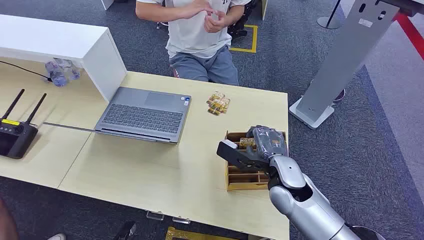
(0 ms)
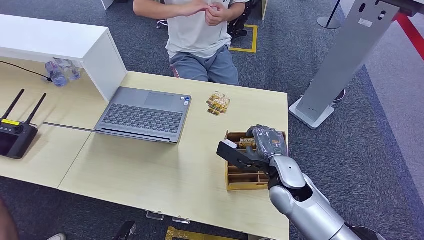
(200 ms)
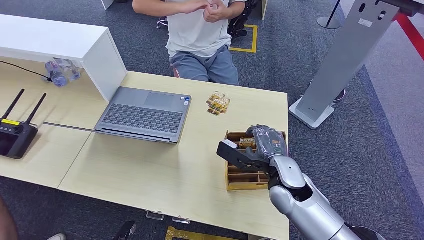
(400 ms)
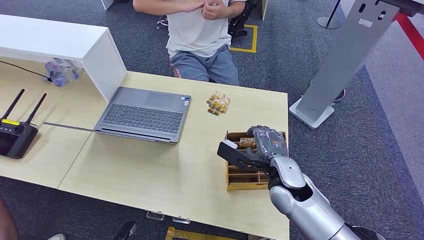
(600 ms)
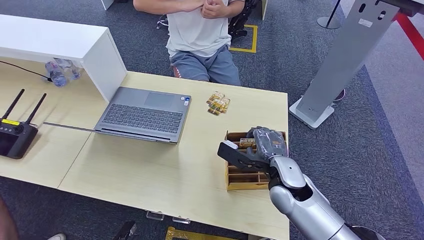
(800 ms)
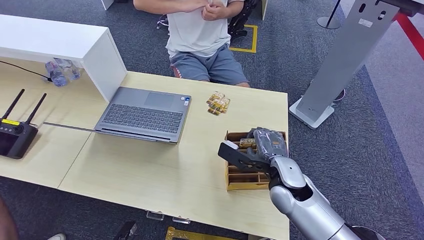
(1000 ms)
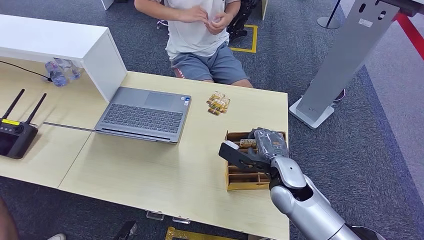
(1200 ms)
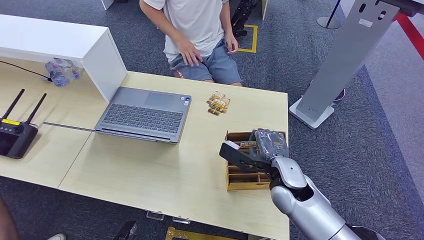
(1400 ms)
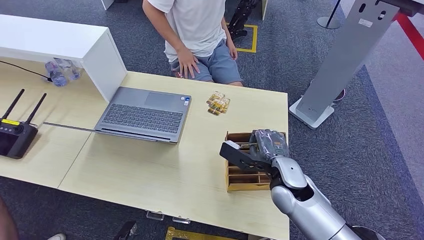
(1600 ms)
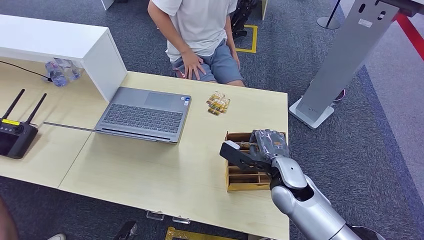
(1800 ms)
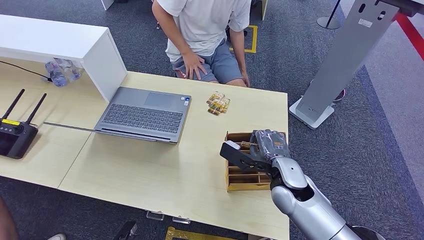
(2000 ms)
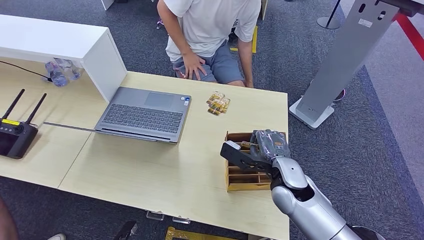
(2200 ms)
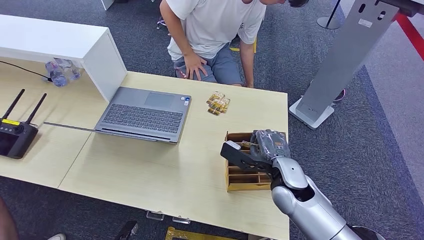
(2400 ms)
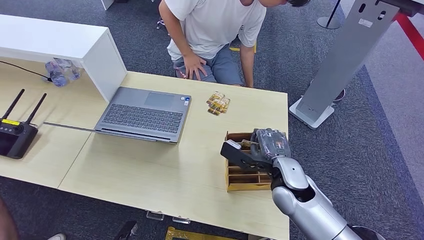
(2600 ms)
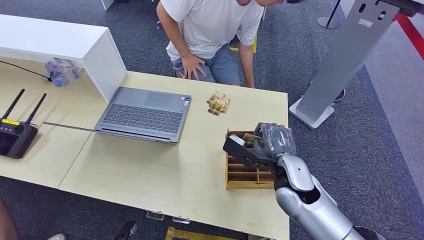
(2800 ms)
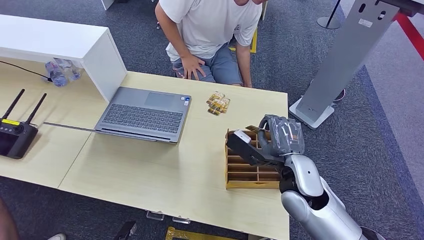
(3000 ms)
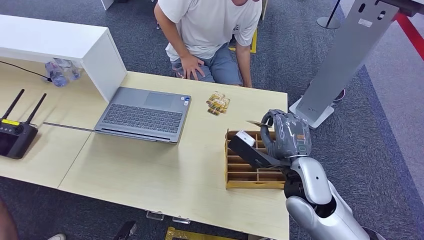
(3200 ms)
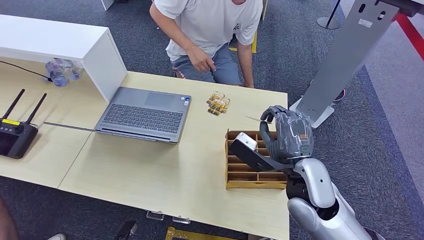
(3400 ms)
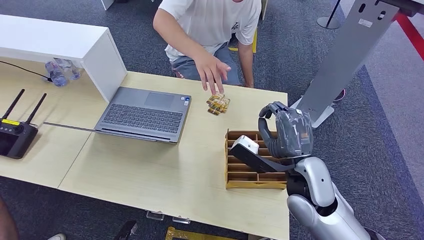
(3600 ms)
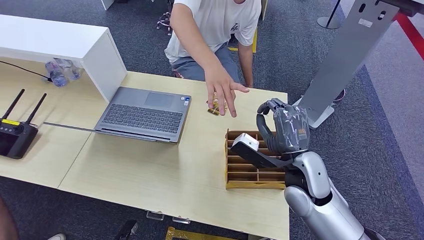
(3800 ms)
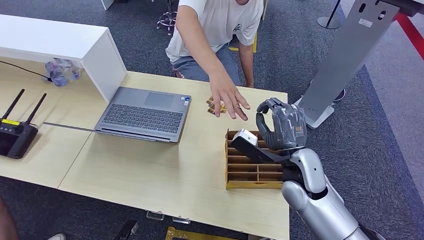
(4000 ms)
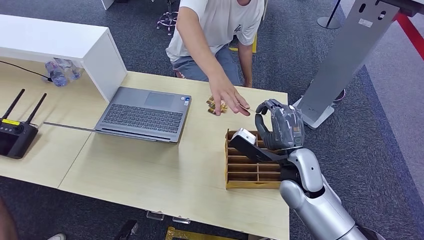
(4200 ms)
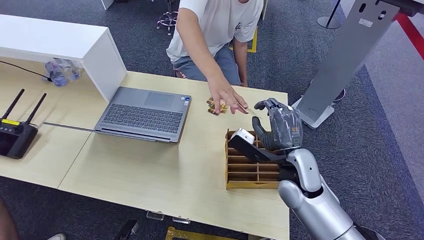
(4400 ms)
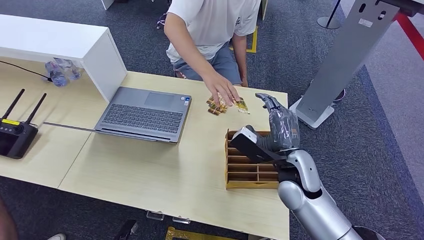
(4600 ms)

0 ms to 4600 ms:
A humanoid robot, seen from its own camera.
Step, 0 ms to 3000 ms: Pick up the room card from the card holder.
Step, 3400 ms to 4600 ms: Hand the room card to the target.
1600 ms to 3000 ms: There are only small adjustments of the hands.

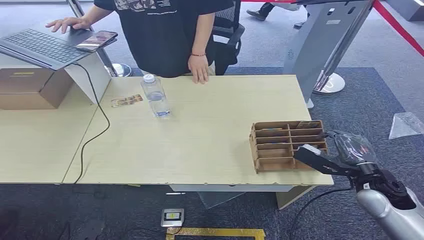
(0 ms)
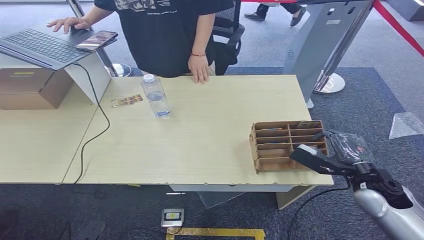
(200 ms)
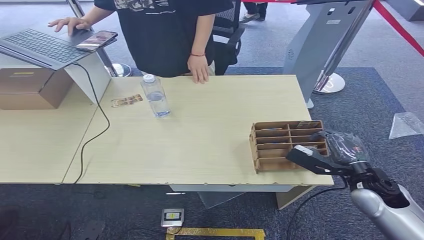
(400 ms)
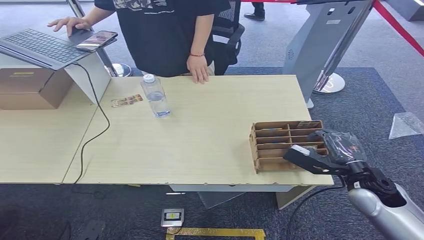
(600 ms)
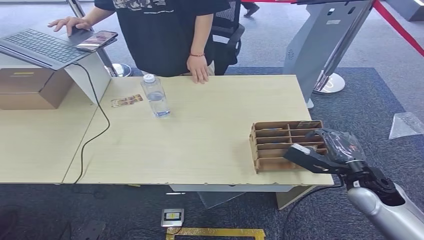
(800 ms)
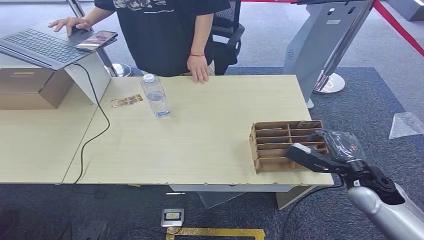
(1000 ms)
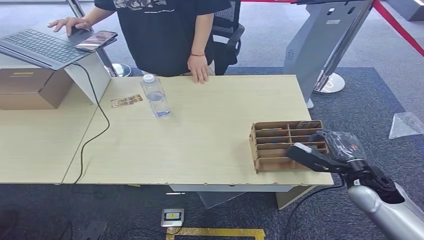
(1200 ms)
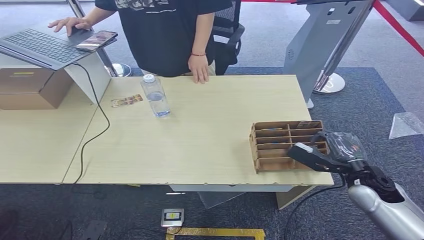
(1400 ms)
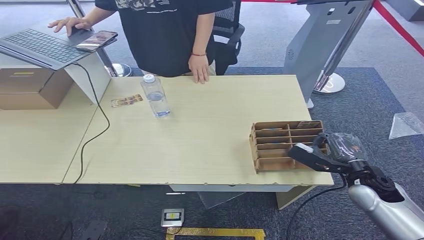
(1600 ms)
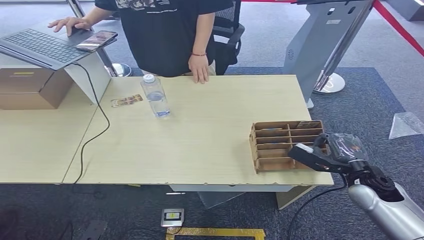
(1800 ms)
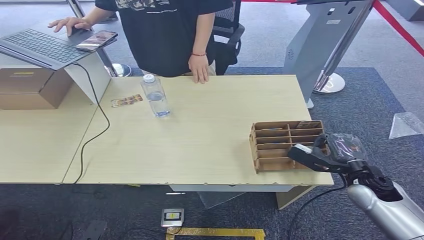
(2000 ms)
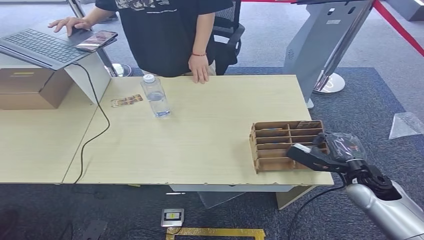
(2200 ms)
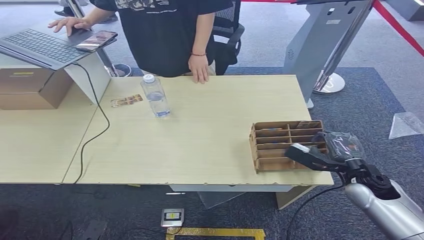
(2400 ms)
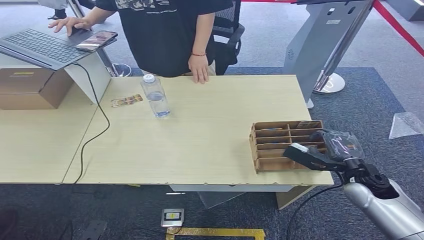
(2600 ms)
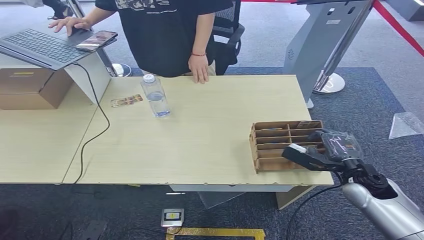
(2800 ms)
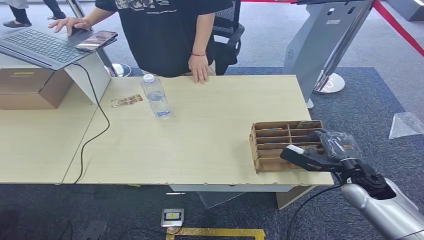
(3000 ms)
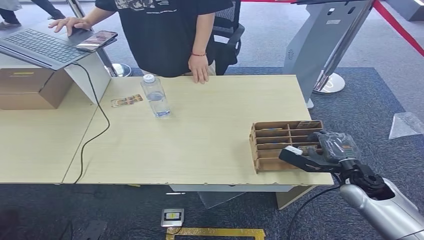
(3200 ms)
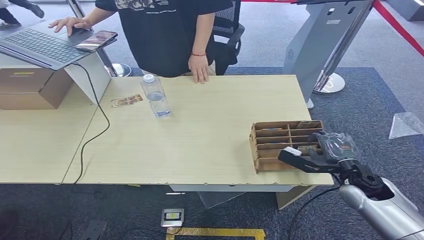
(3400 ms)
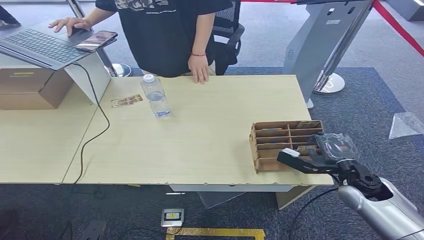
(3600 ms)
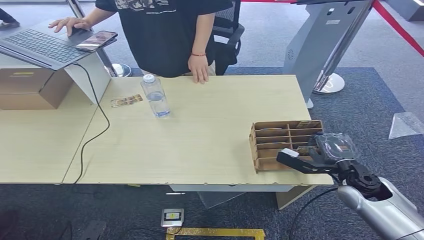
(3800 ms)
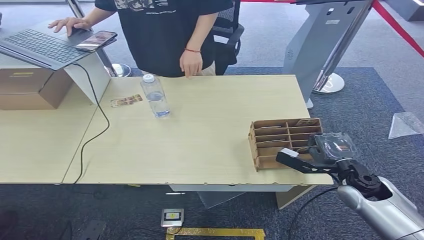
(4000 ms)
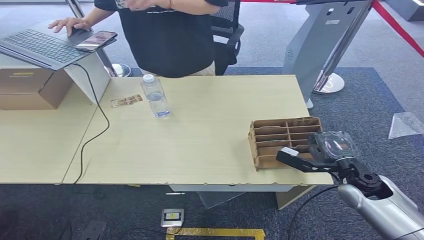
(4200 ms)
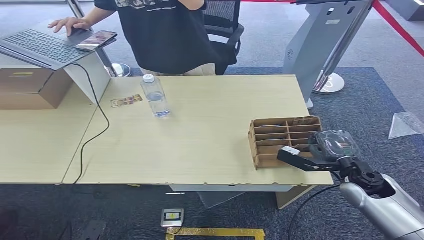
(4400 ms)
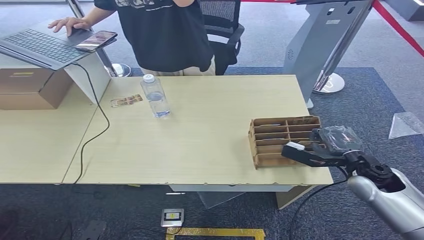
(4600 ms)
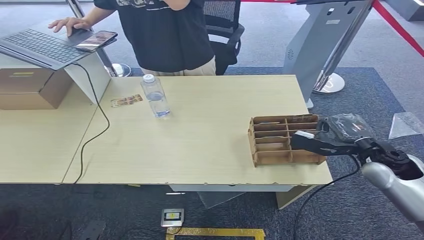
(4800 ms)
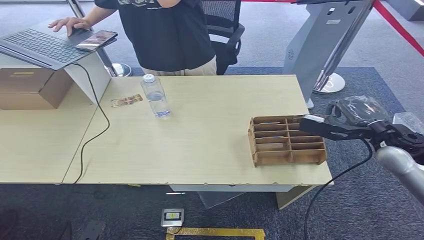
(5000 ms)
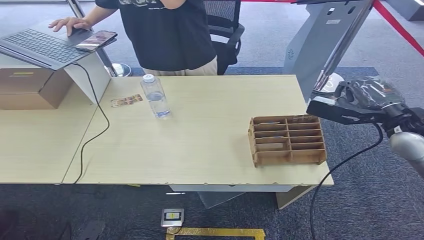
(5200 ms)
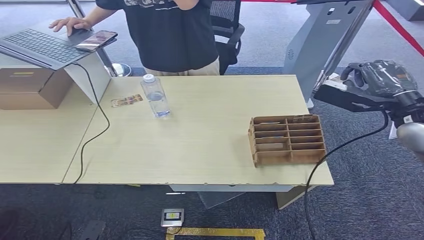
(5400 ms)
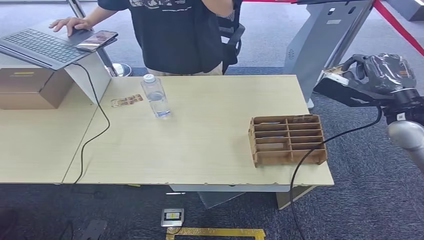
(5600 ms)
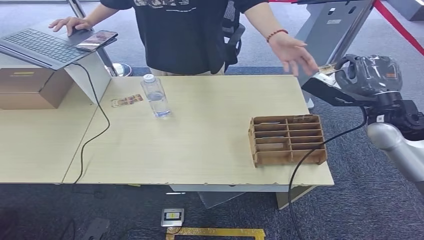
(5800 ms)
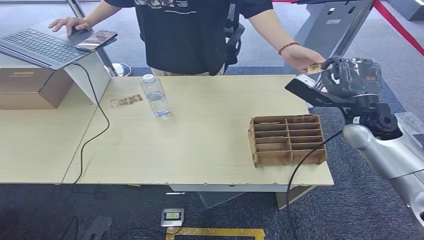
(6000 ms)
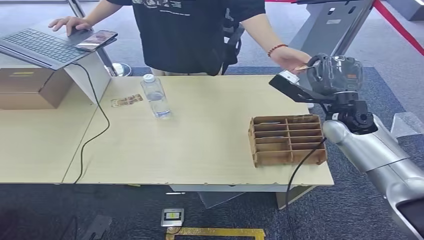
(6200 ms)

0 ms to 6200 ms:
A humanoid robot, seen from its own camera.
Step, 0 ms to 4600 ms: Pick up the room card from the card holder.
Step, 4800 ms to 6000 ms: Hand the room card to the target.
1600 ms to 4600 ms: The hands stay close to where they were, moving slightly.
4600 ms to 6200 ms: The right hand goes roughly 15 cm upward, forward and to the left.
